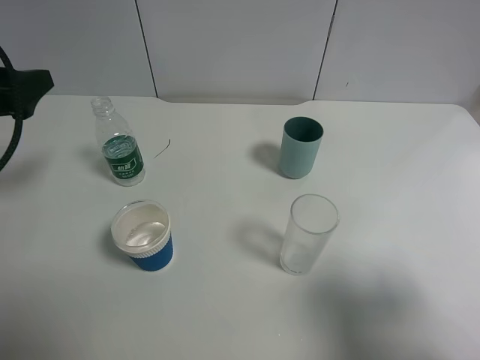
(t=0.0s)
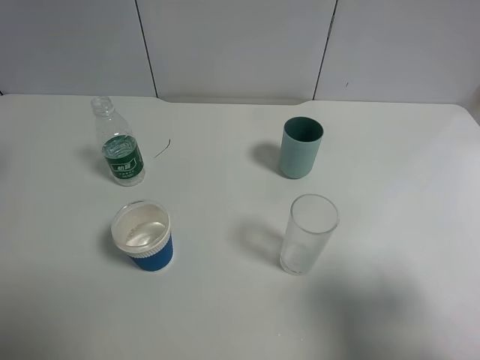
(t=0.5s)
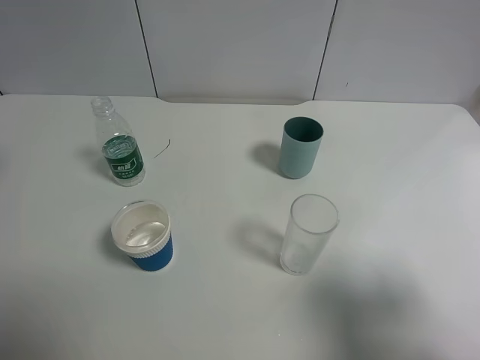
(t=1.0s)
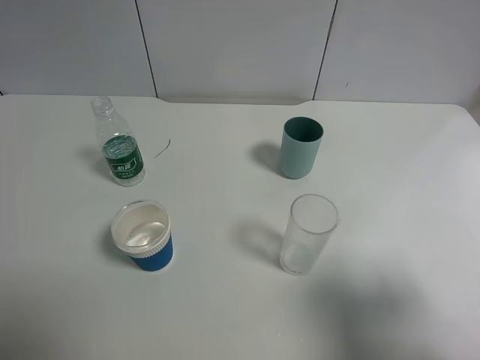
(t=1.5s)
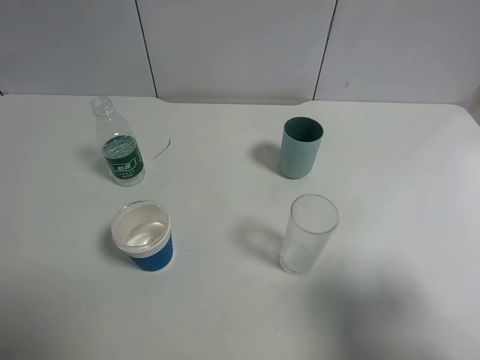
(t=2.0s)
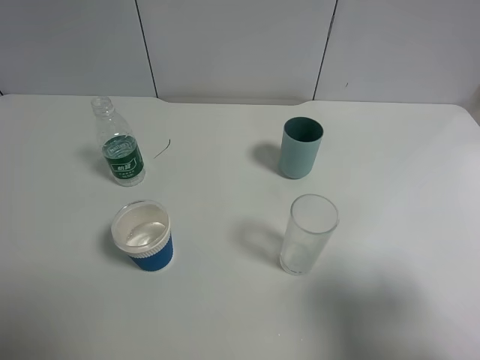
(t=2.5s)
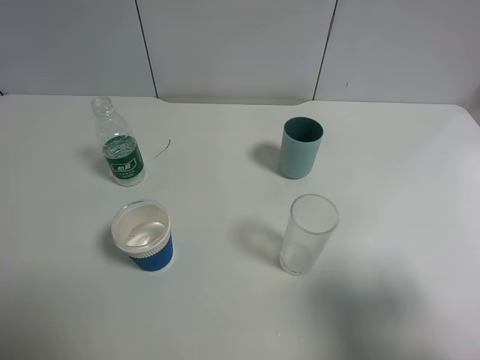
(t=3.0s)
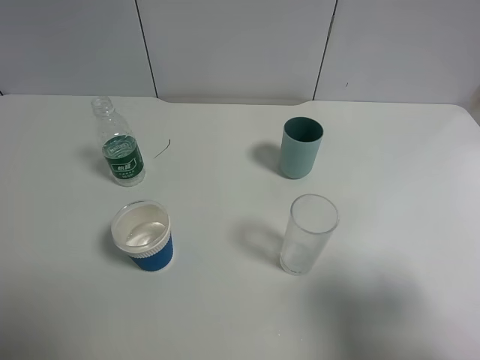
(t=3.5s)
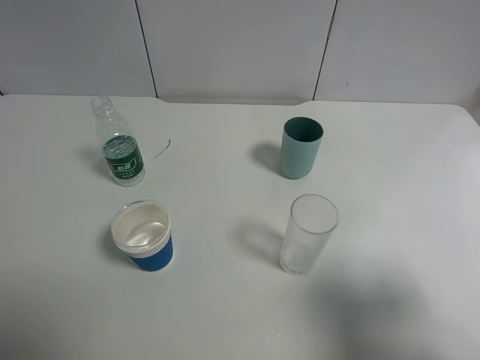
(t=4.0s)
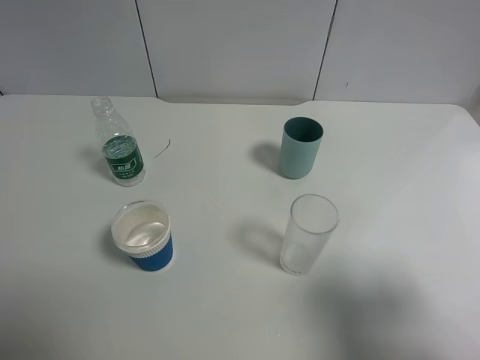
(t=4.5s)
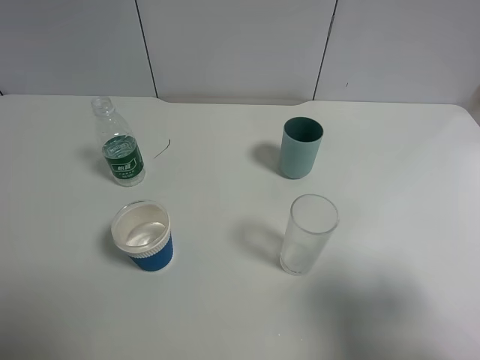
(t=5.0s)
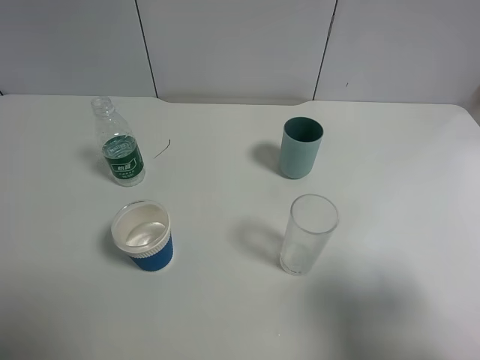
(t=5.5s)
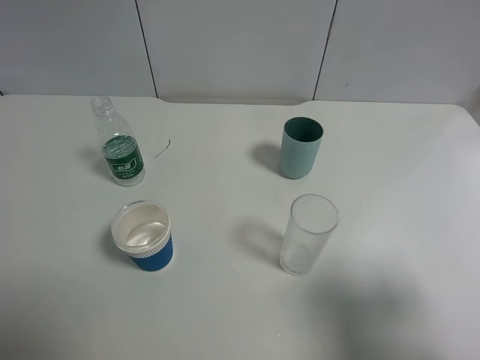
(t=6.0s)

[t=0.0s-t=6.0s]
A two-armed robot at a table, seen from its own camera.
Task of the whole recording: use a gripper to hold the bottle of the drink and pour it into a random cup.
t=0.0s to t=2.0s: The left gripper moves backward and upward, roughly 20 cm.
t=4.0s to t=6.0s: Both grippers stay about where they are.

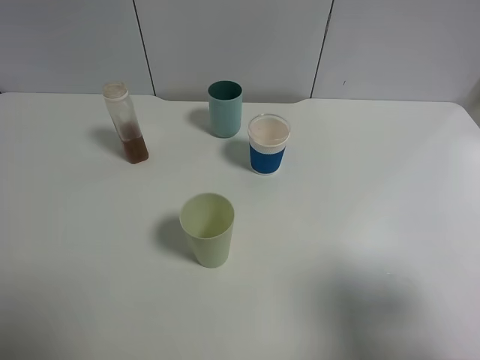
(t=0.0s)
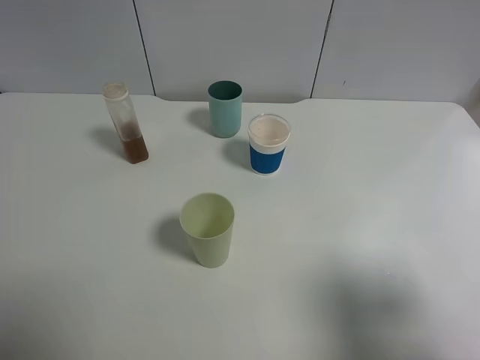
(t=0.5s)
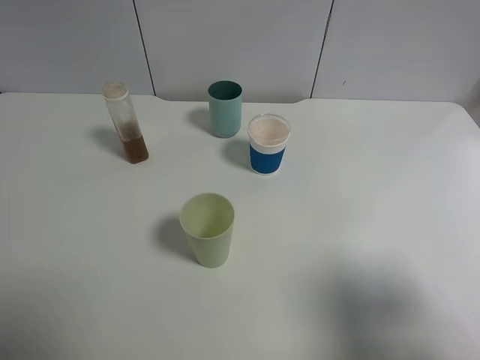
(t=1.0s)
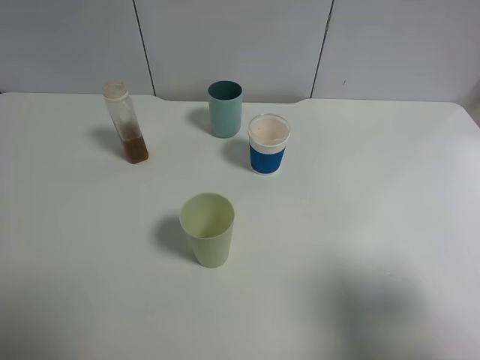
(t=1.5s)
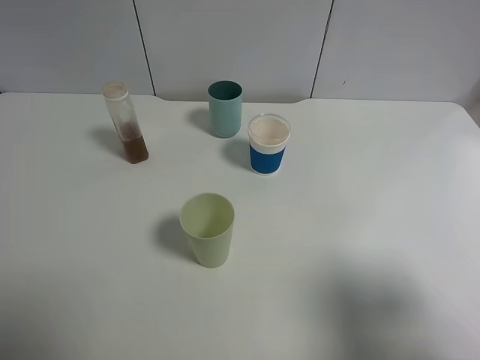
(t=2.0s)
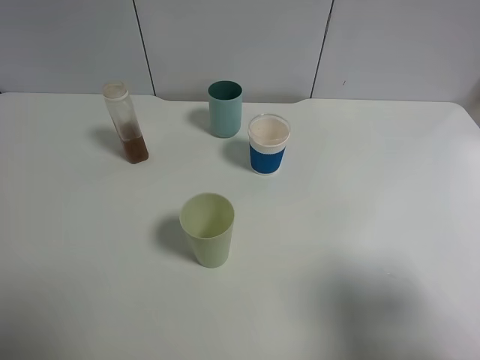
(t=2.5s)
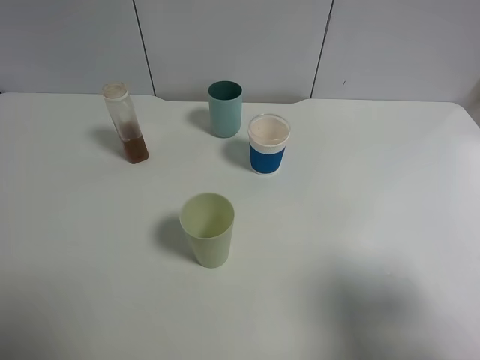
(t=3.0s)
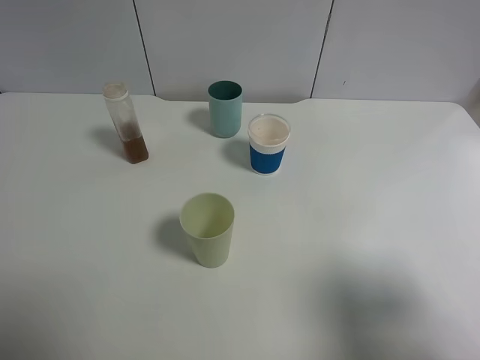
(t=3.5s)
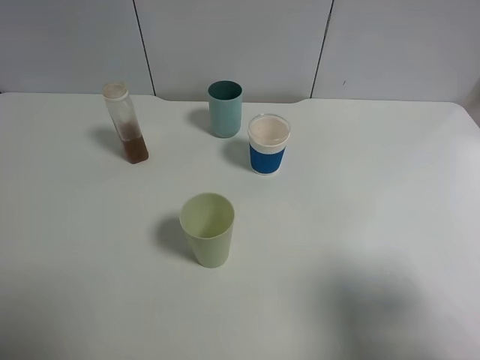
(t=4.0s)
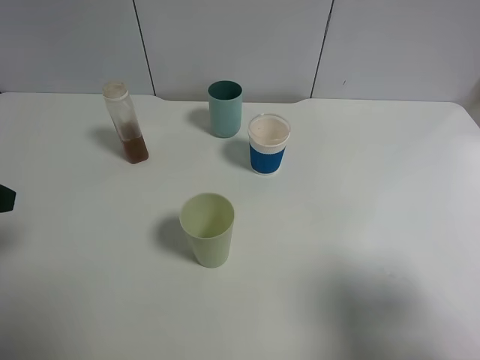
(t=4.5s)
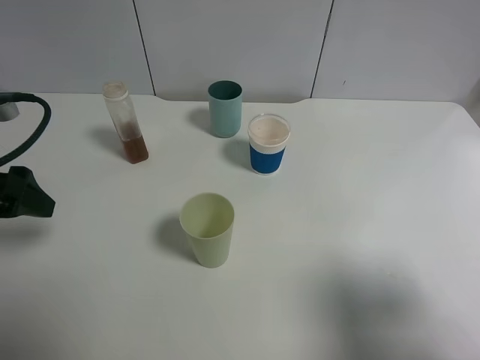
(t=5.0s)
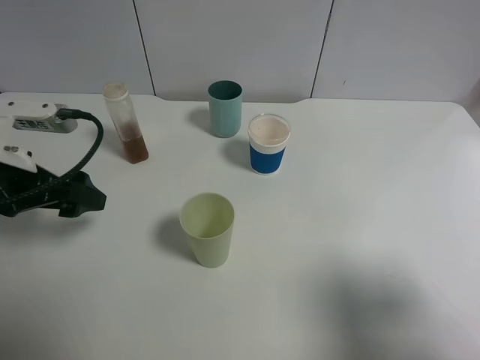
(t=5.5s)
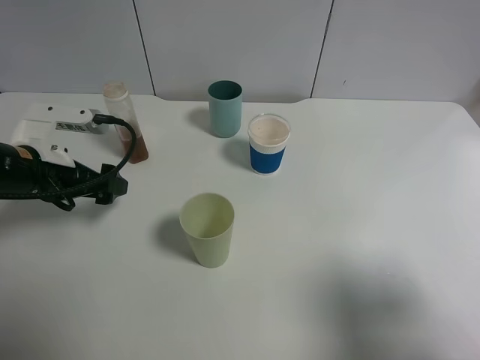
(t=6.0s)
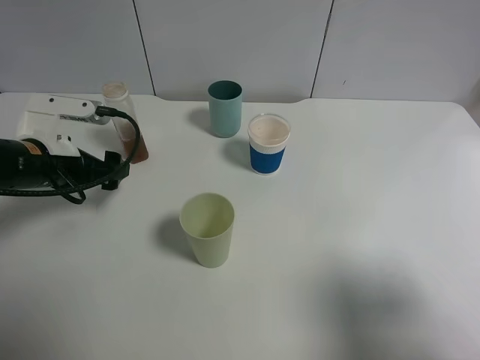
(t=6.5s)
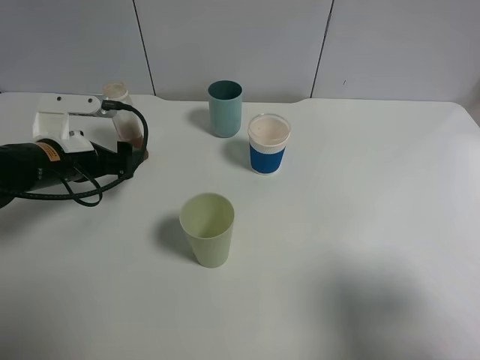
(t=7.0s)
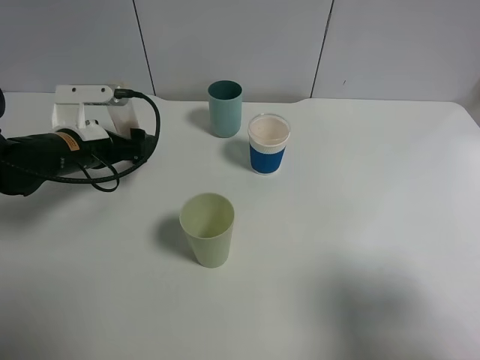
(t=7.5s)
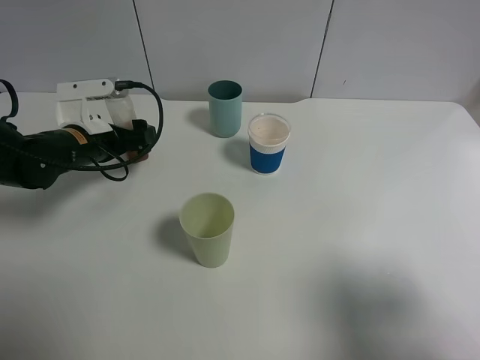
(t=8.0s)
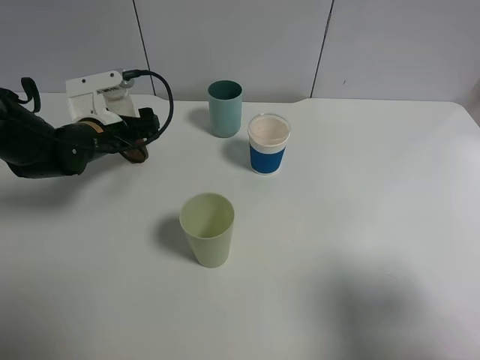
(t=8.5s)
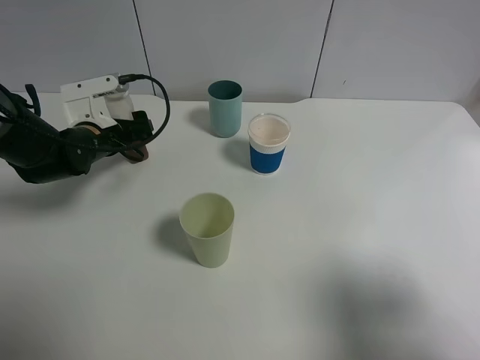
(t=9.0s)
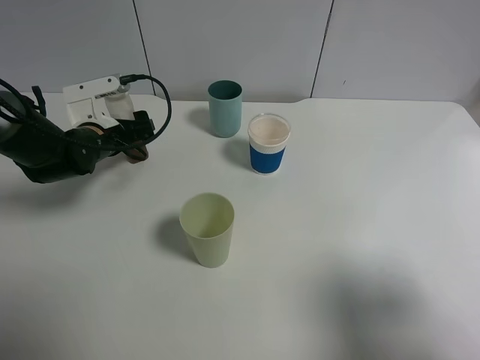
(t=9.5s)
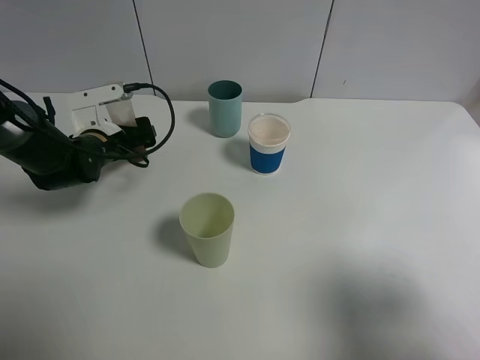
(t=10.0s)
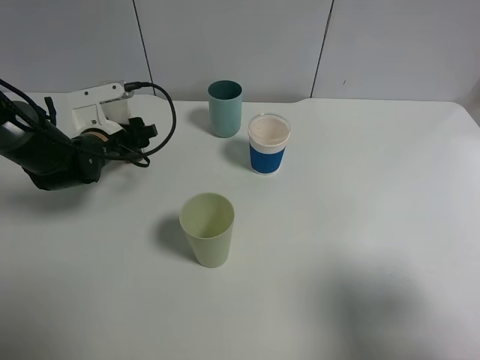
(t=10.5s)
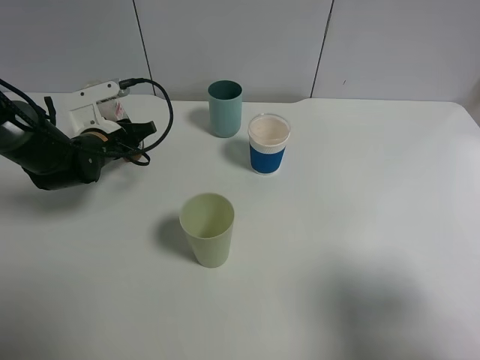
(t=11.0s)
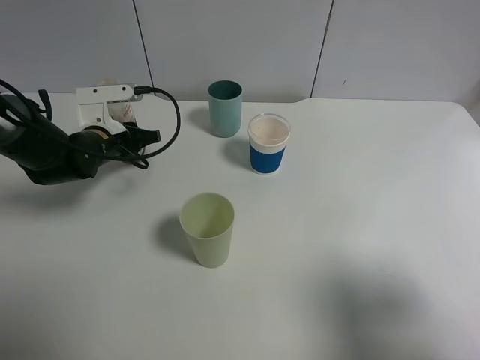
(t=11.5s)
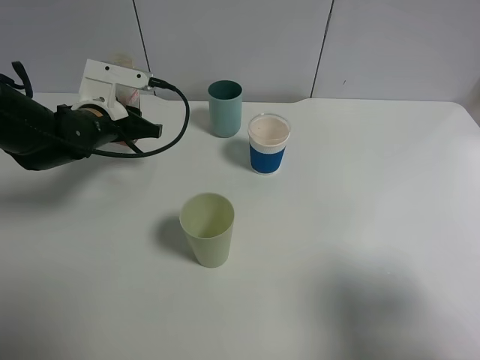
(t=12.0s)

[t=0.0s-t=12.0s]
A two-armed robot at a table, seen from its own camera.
Task of the whole recording: use a gripper to hold the bottle of the drink and pour it into a random cup.
Step, t=0.0s to t=10.0s: Grasp the cranberry juice bottle with the left gripper.
t=0.0s to t=2.0s: Both grippers stay put.
t=4.0s to t=6.0s: The left gripper goes about 20 cm forward and downward.
t=6.0s to t=8.0s: The left gripper travels forward by some 10 cm.
t=8.0s to t=10.0s: The grippers stay close to where they were, moving slightly.
t=10.0s to t=12.0s: The left gripper moves upward, roughly 5 cm, and closes its fingers.

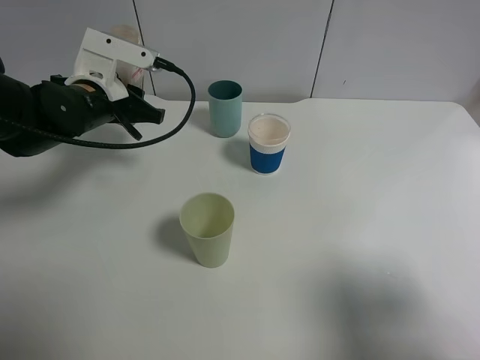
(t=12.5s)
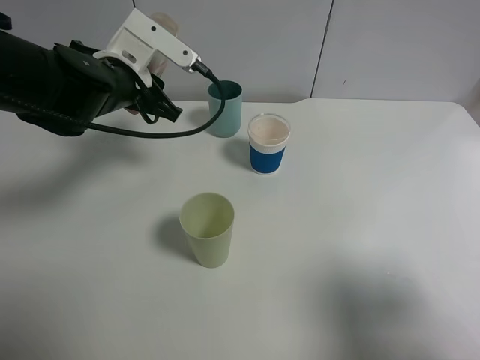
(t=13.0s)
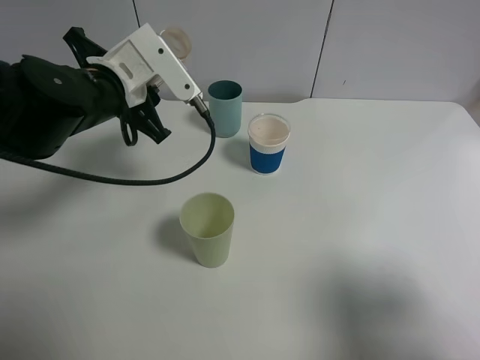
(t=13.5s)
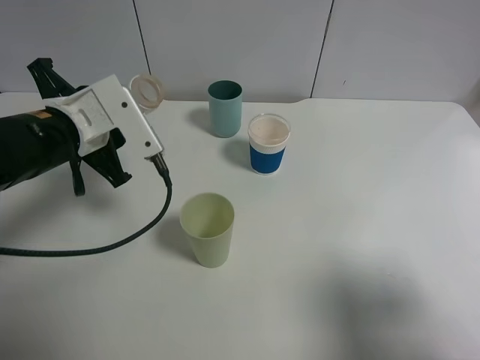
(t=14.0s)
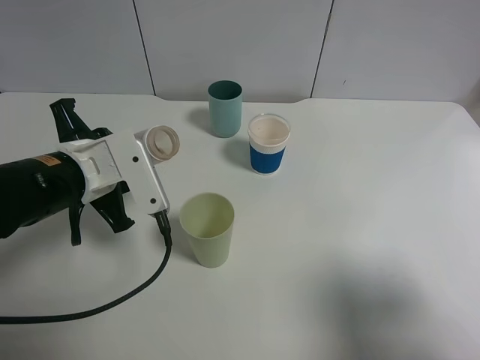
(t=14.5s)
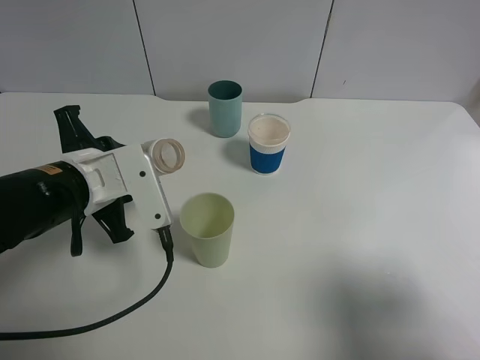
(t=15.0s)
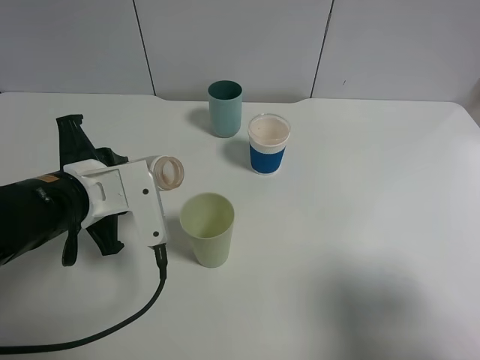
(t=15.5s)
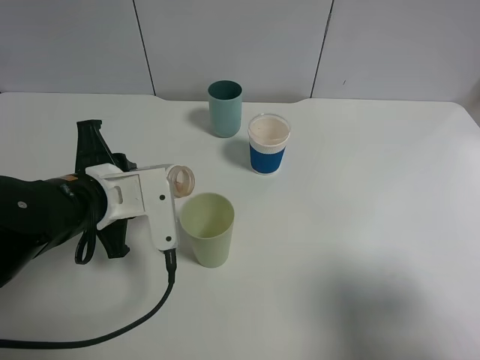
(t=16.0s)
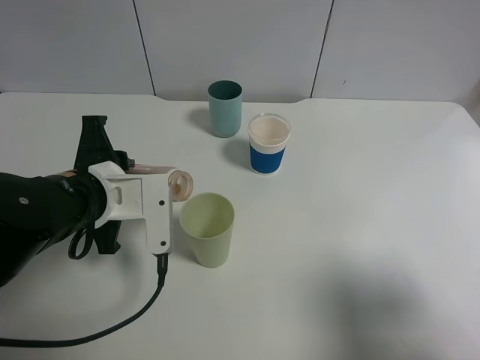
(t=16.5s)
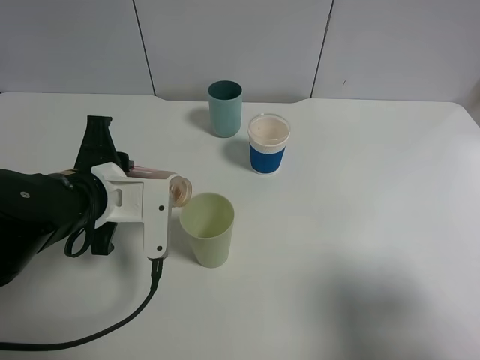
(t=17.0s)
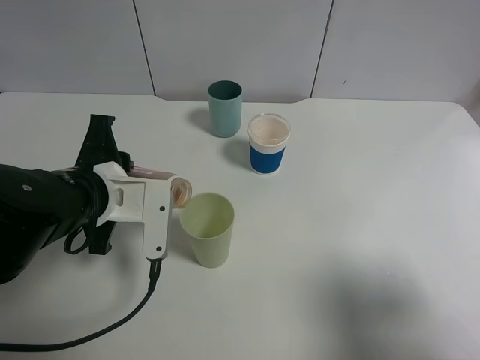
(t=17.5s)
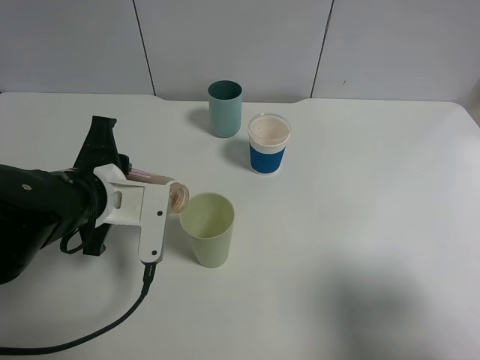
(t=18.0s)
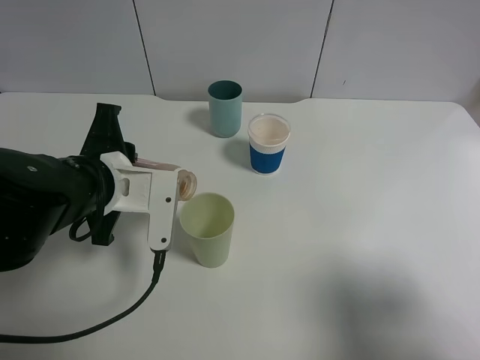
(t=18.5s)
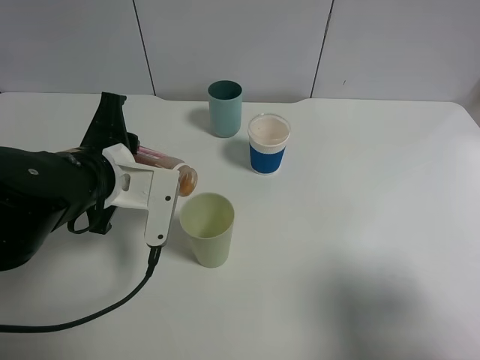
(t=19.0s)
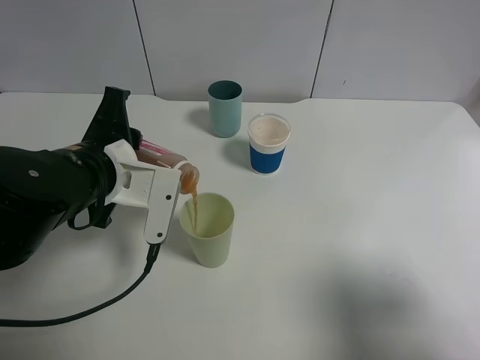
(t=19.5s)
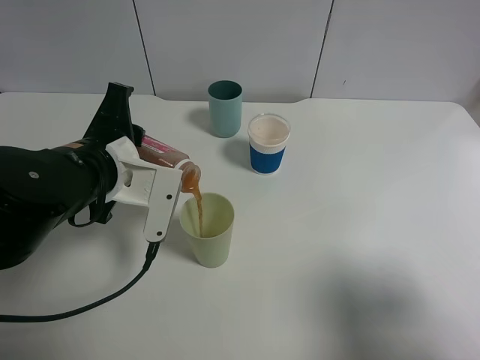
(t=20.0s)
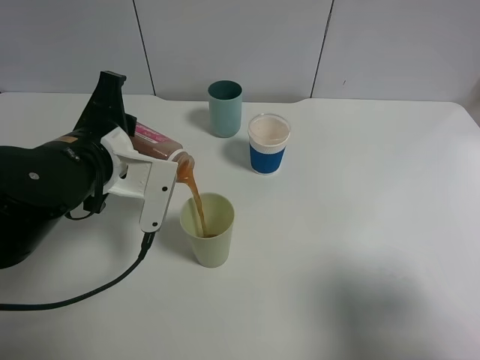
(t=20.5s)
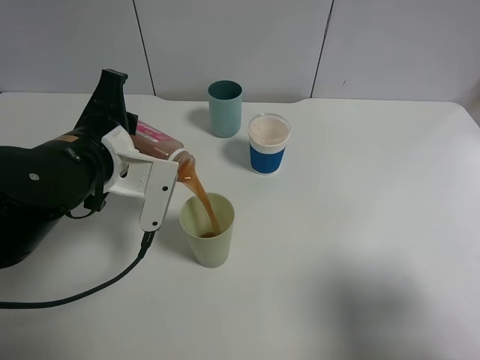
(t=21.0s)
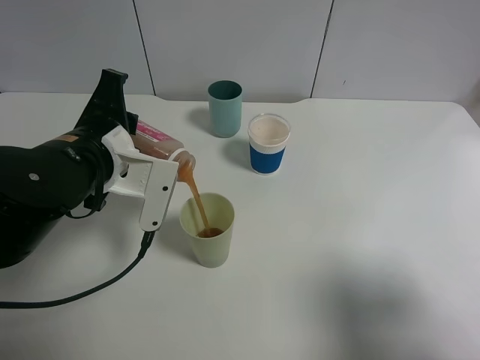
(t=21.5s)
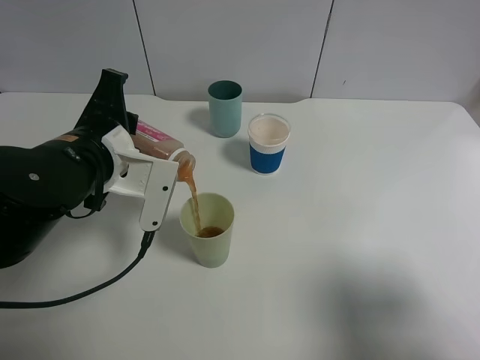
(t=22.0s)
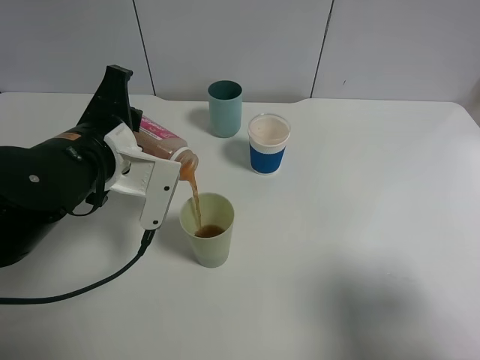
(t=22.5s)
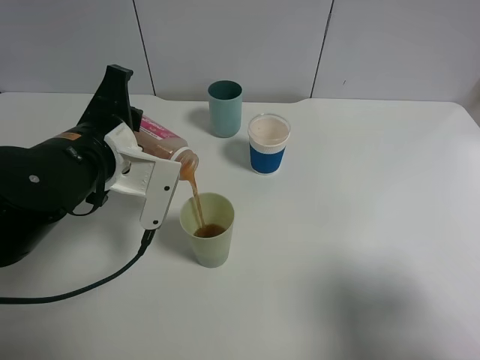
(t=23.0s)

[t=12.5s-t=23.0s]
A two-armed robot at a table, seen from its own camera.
Task of the whole recording: use a gripper to hold the bottle of the drink and pour it into a random cup.
t=12.5s to t=14.5s: The left gripper heads backward, covering some 15 cm.
t=16.5s to t=19.0s: The grippers make only small movements.
t=19.0s to t=21.0s: The grippers make only small movements.
t=21.0s to t=23.0s: Both grippers stay about where they are.
